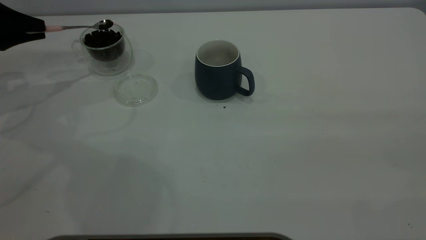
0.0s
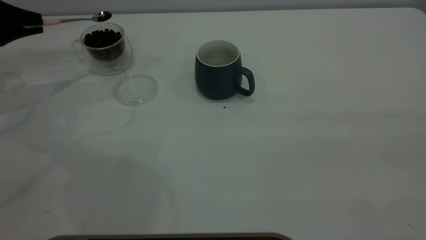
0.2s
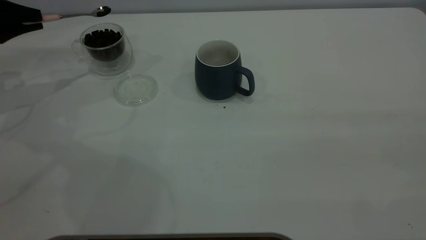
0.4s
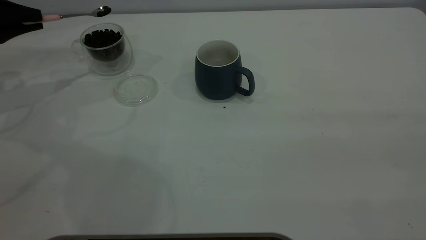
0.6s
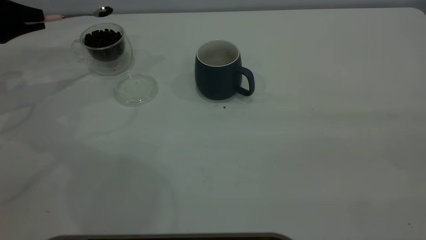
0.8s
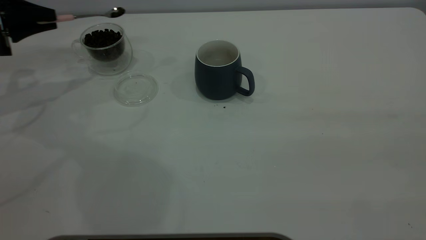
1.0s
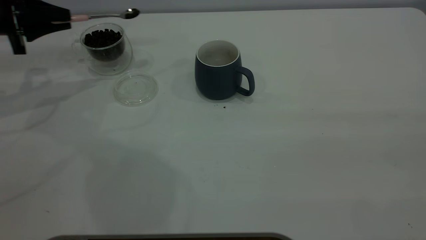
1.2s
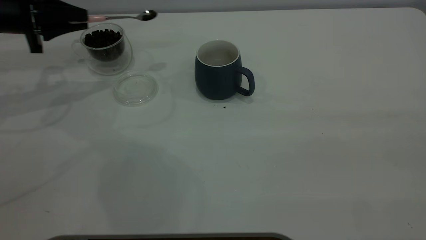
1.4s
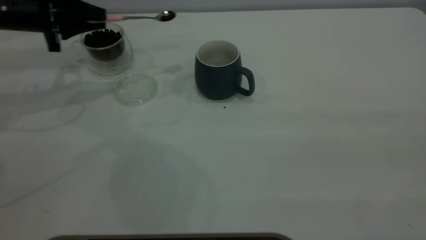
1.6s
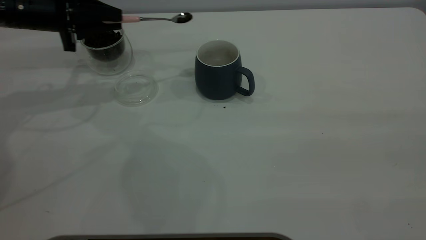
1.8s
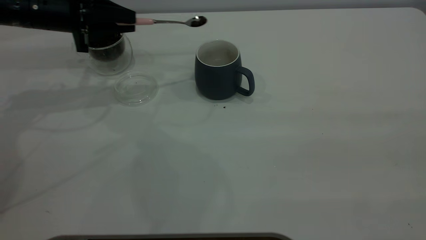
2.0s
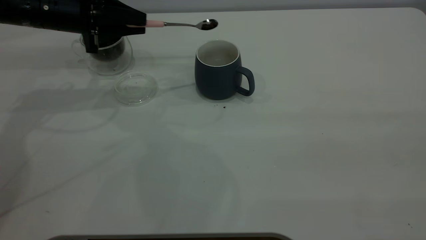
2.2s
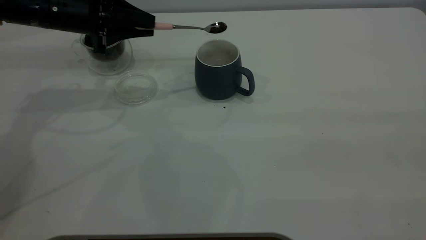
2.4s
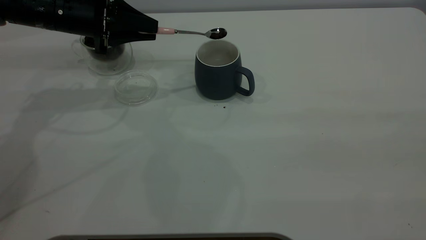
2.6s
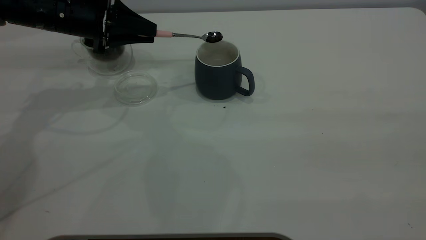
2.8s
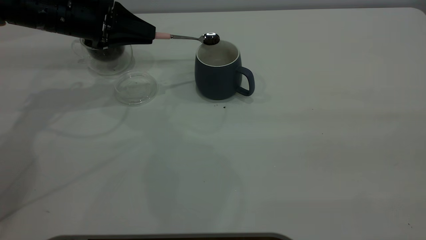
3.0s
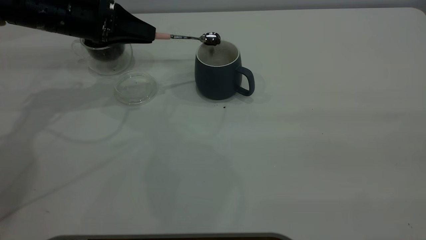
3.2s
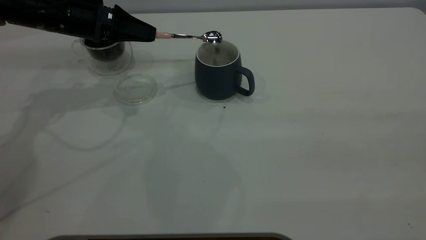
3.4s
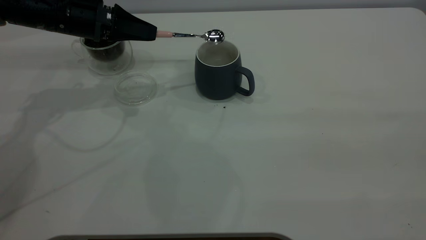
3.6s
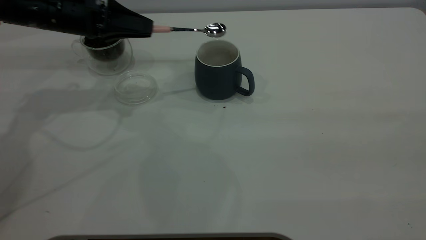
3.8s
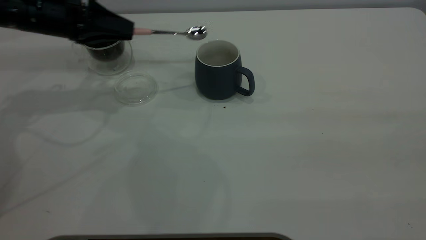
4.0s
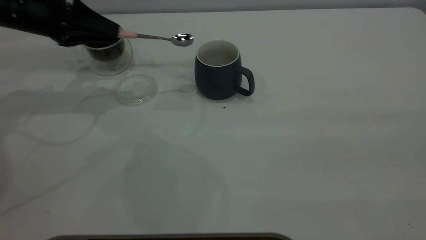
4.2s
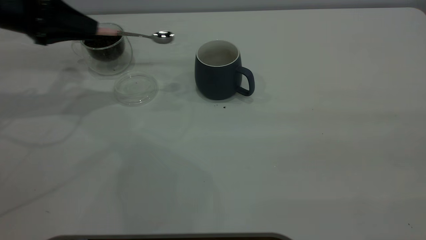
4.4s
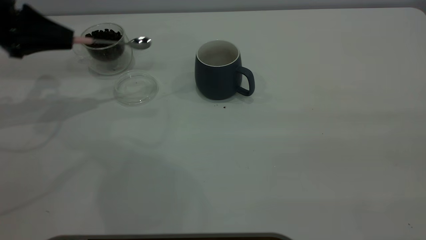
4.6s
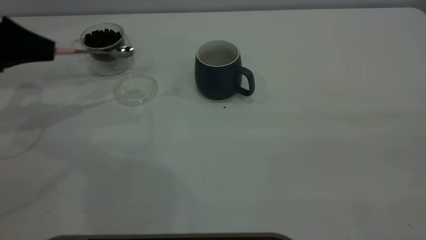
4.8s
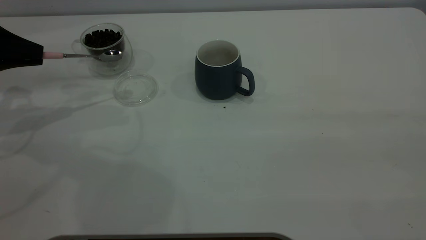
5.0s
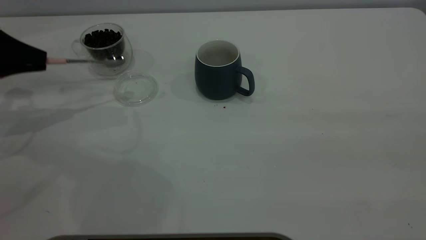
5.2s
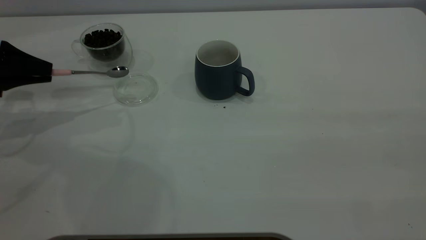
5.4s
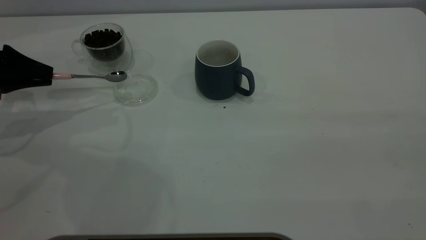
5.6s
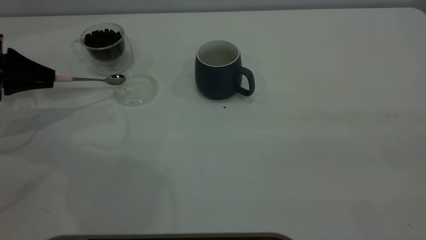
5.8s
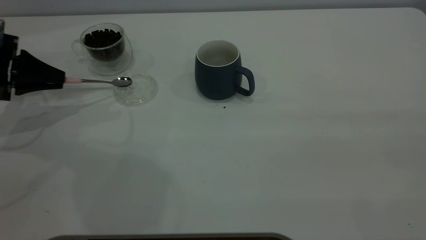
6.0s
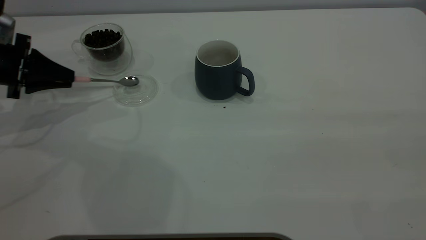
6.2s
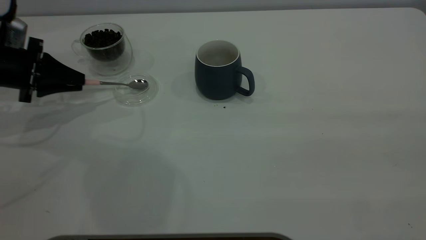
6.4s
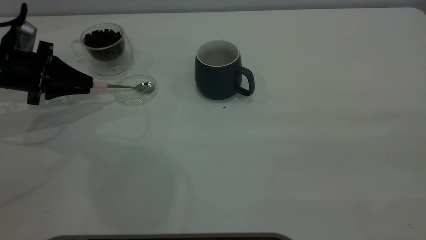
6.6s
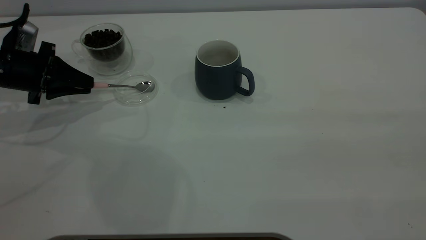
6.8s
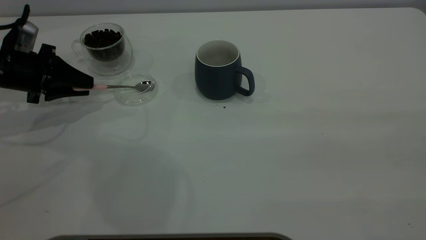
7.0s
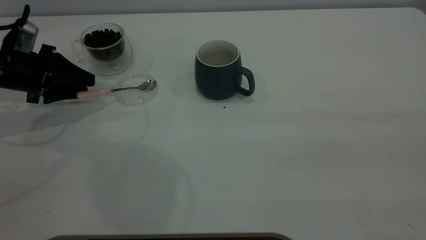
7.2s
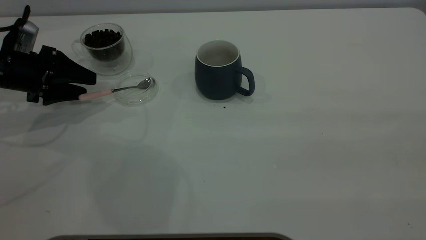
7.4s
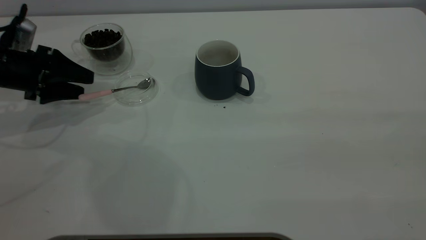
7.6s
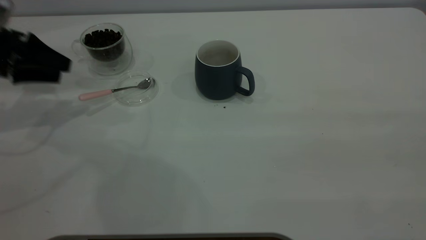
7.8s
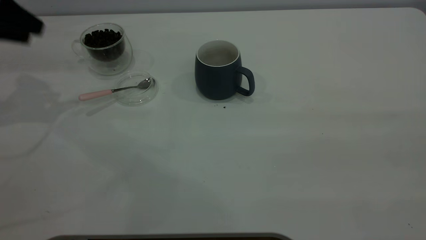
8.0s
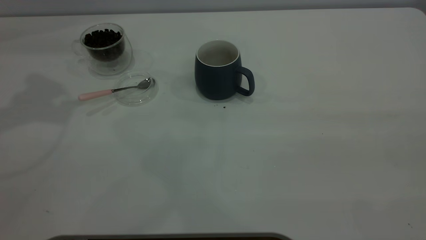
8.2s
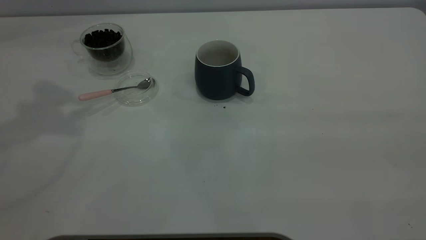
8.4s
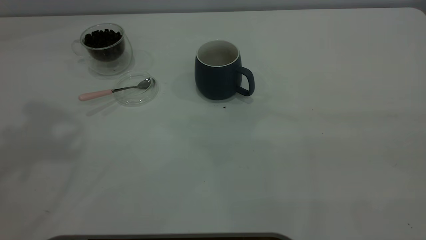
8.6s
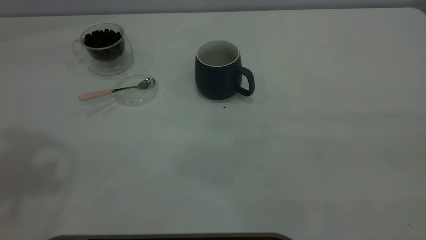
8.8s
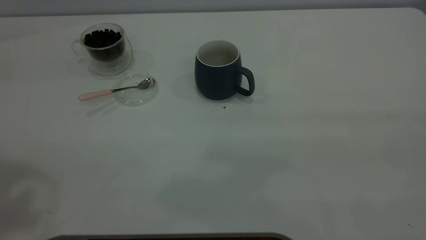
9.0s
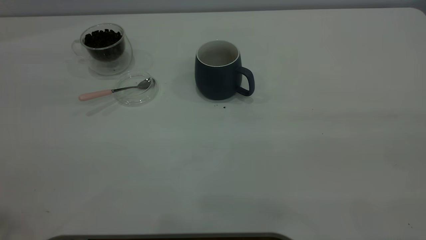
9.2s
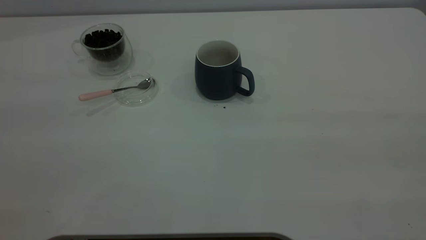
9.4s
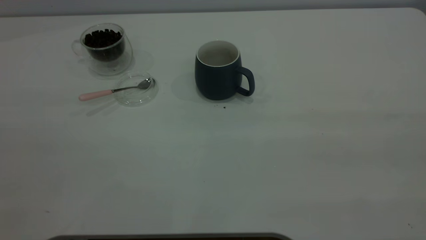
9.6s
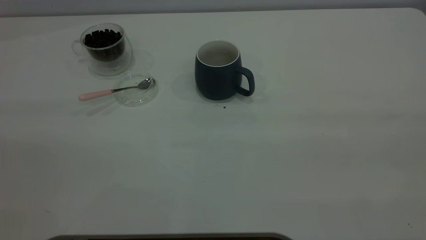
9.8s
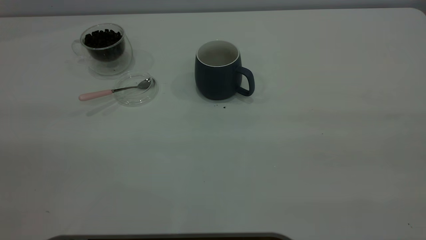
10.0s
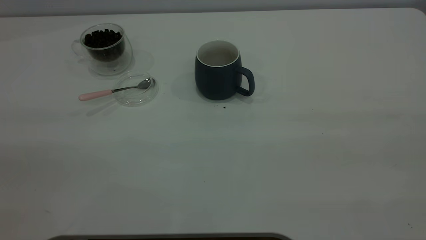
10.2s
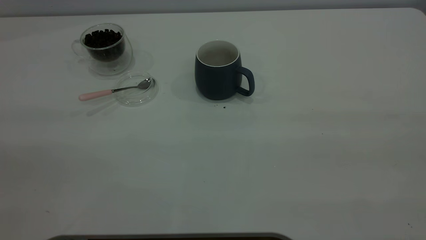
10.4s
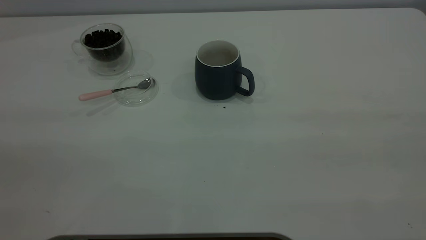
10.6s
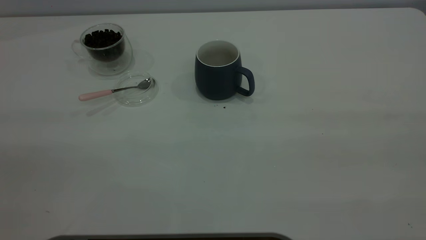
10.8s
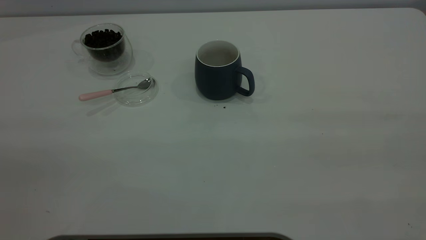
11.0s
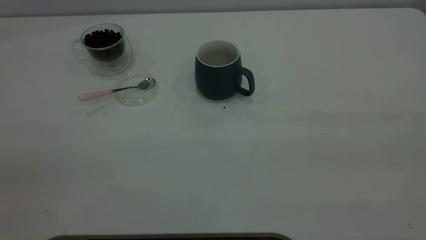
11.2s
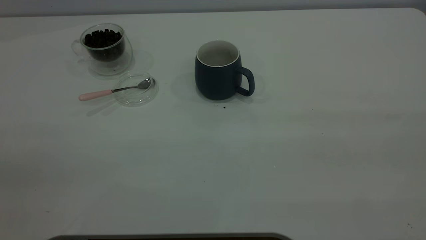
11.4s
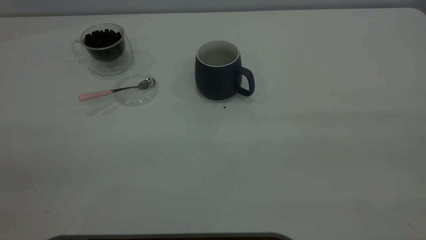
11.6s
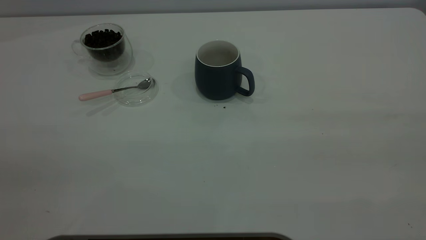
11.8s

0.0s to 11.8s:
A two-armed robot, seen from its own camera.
Task of the whole recording: the right gripper place the grey cup in the center of the table, the left gripper take the pink spoon from the cup lid and scoop out the coffee beans from the coffee cup and put them into the grey cup, the left gripper put the spoon back into the cup lid.
Step, 0.0s to 3.8s: Scoop a spoonful of beans into the cup.
Step, 4.2s to 7.6s: Place the spoon back in its original place.
0.0s to 1.4s: The left gripper shifts some 10 cm to the right.
1.4s to 3.0s: The left gripper travels to the right by some 10 cm.
3.0s to 4.4s: The left gripper goes approximately 10 cm to the left.
4.4s to 6.0s: The left gripper goes some 10 cm downward and to the left.
6.0s to 7.4s: The left gripper opens up.
7.4s to 8.8s: The left gripper shifts roughly 40 cm upward.

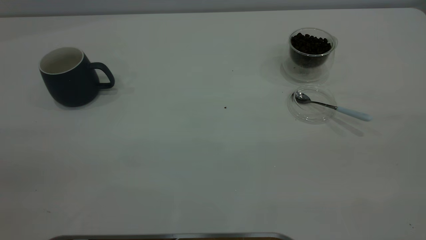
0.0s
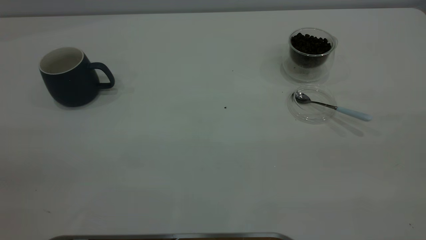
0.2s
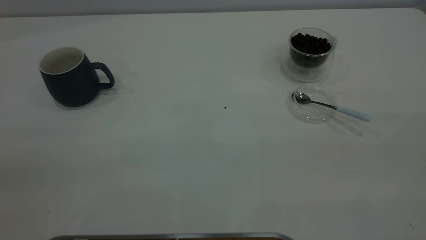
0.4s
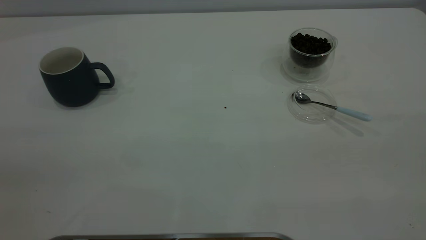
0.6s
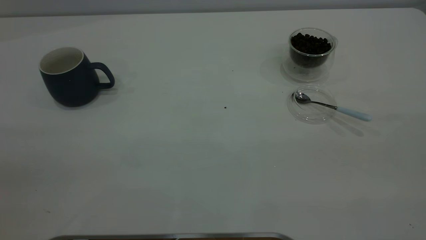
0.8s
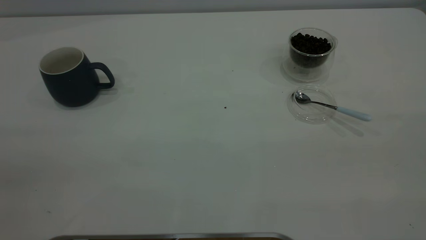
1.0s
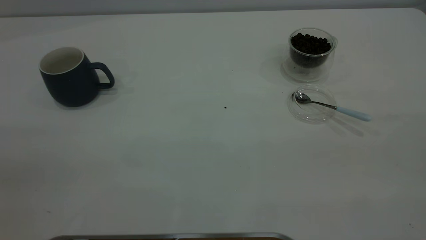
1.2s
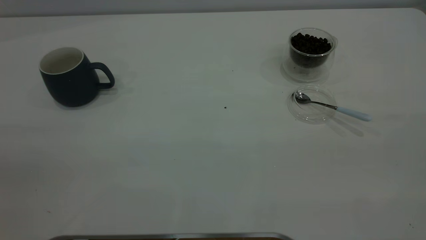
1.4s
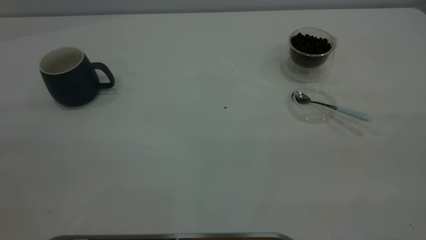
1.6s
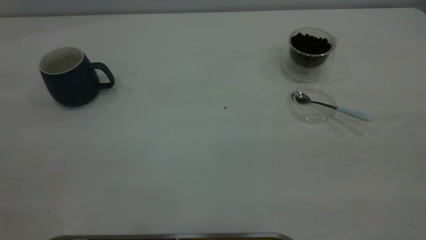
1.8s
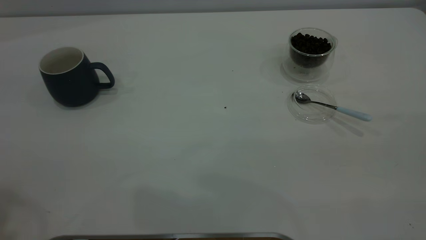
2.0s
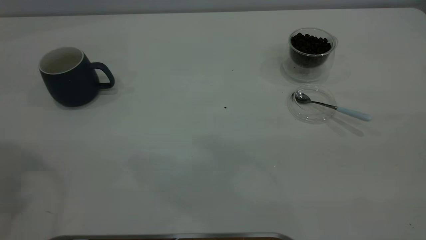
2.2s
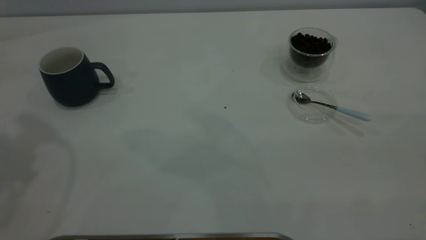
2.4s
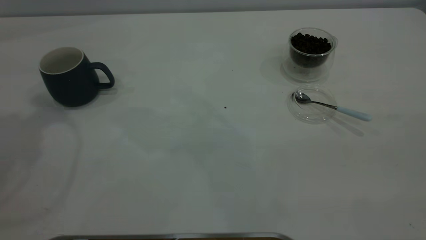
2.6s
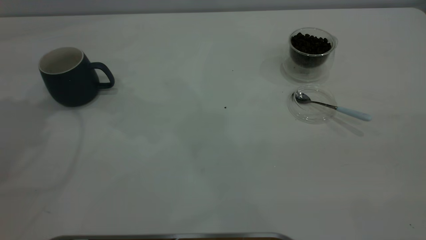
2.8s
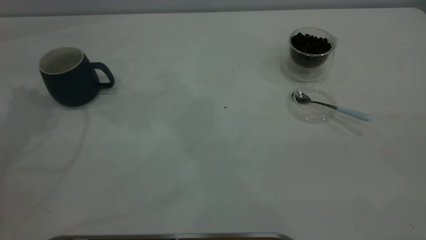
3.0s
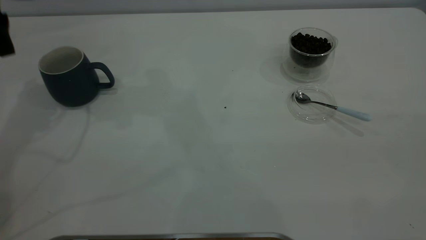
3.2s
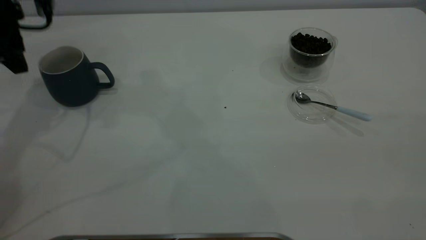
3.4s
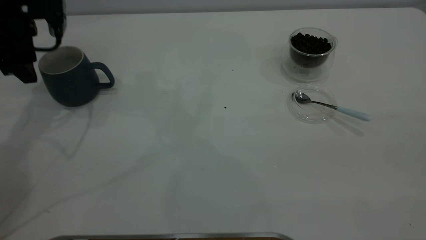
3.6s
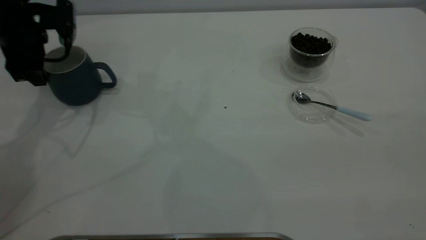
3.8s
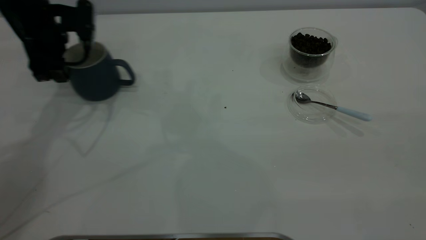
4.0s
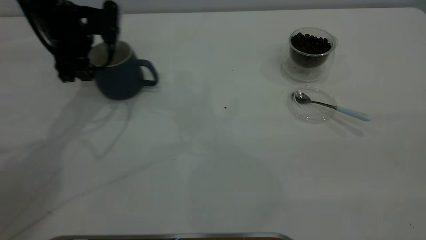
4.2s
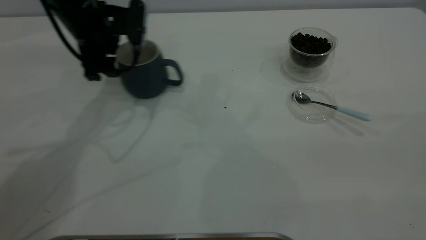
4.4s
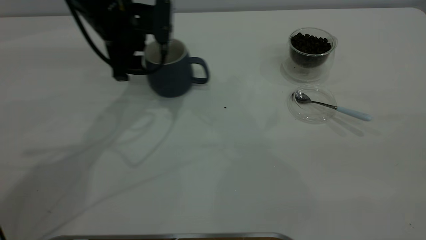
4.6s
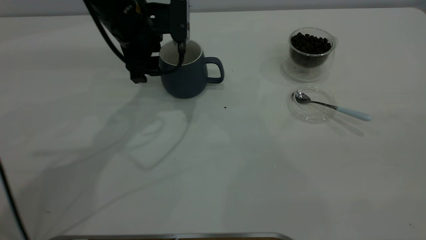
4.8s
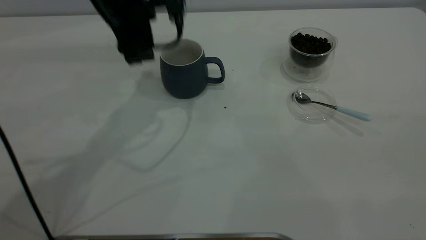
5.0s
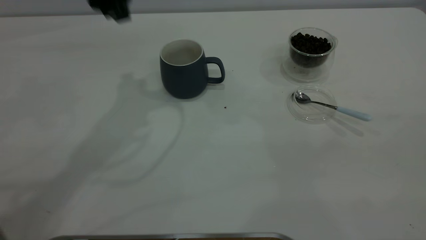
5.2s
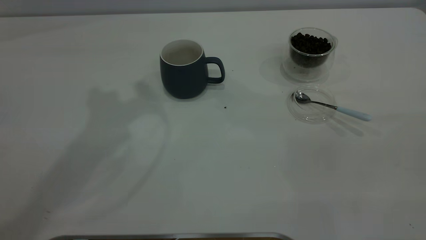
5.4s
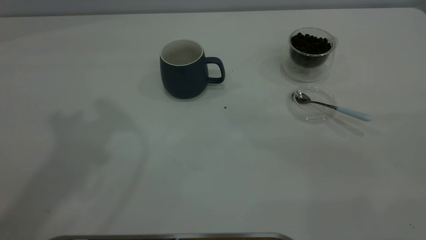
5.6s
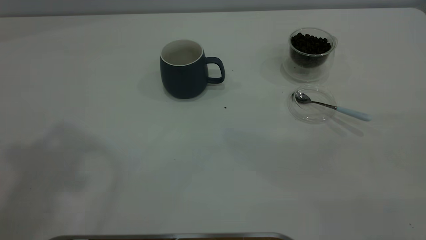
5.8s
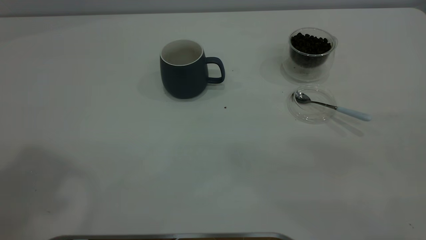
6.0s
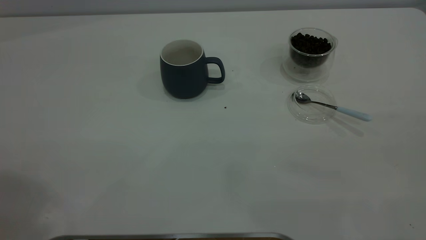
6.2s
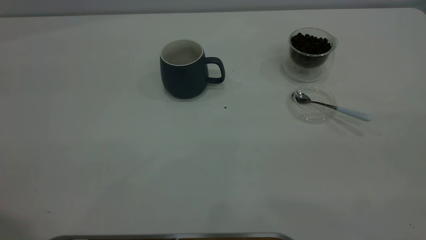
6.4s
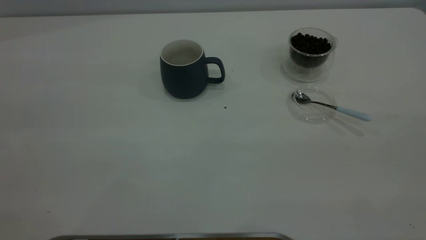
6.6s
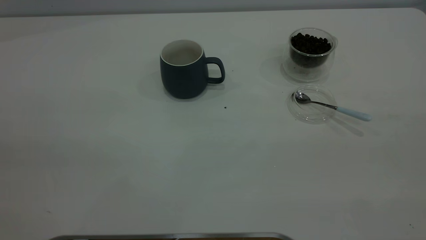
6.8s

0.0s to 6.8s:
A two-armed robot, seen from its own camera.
Task of the whole recording: the left gripper place the grey cup in the center of the table, the right gripper take the blue spoon from the cup lid and scoop out the coffee beans from the coffee cup and put them into the grey cup, the right gripper put the spoon back into the cup lid.
Step, 0.0s to 5.0s: Move the cup to the center of view.
0.0s to 1.4s: Neither gripper changes place.
2.8s to 4.0s: The left gripper shifts some 20 cm downward and forward.
4.0s to 5.4s: The left gripper heads upward and backward, covering about 25 cm.
